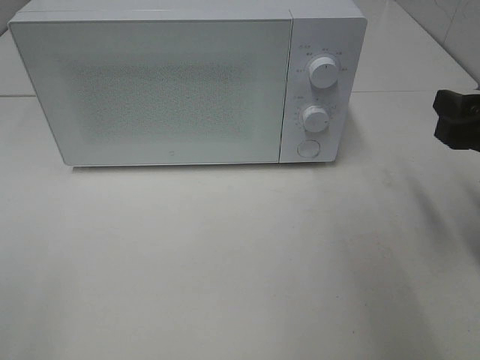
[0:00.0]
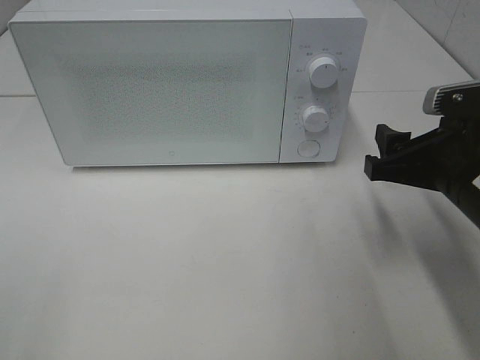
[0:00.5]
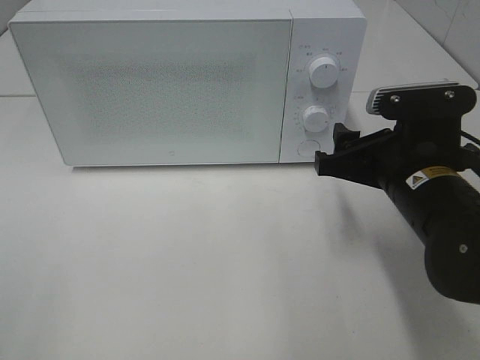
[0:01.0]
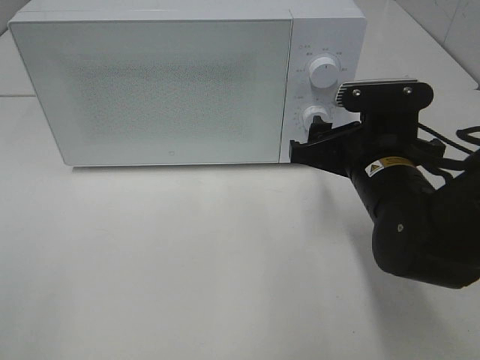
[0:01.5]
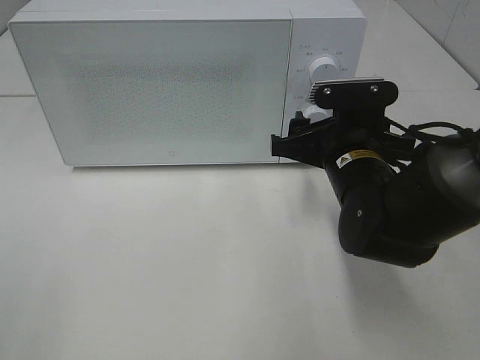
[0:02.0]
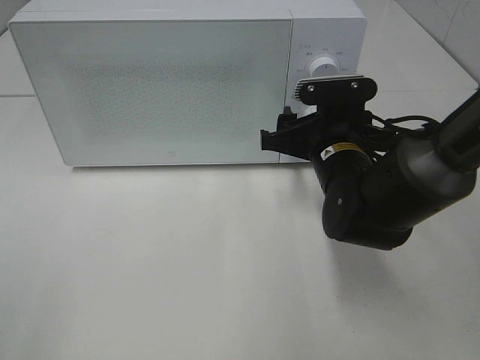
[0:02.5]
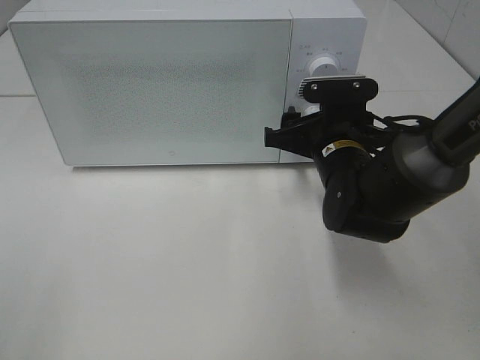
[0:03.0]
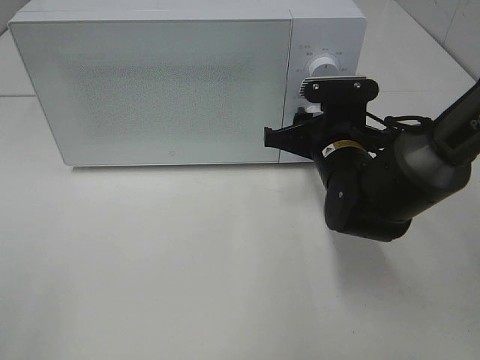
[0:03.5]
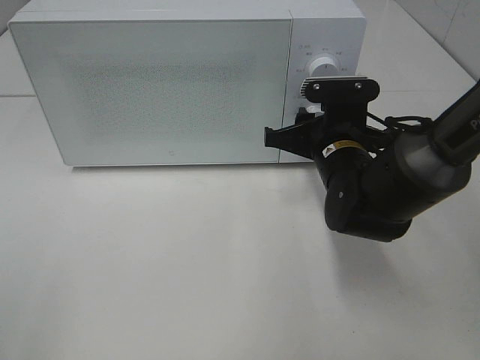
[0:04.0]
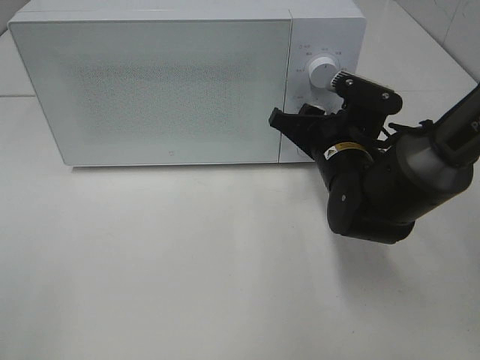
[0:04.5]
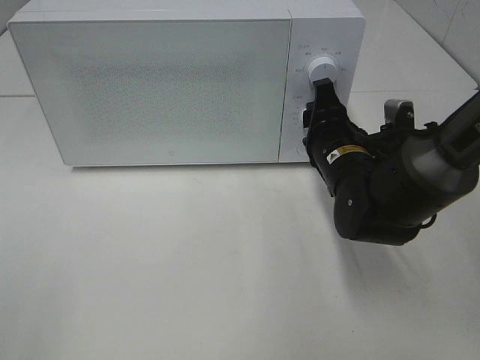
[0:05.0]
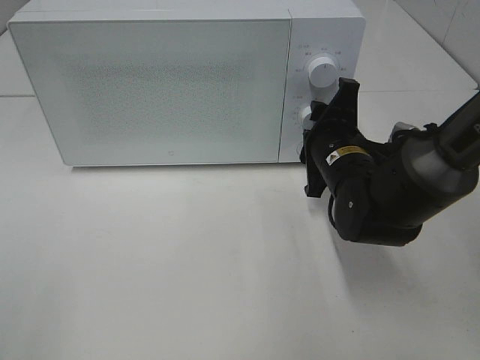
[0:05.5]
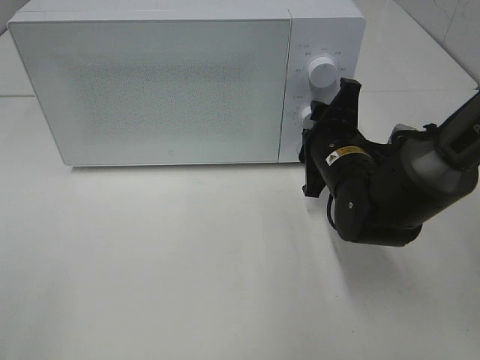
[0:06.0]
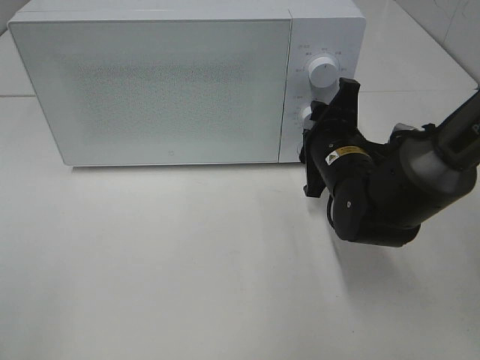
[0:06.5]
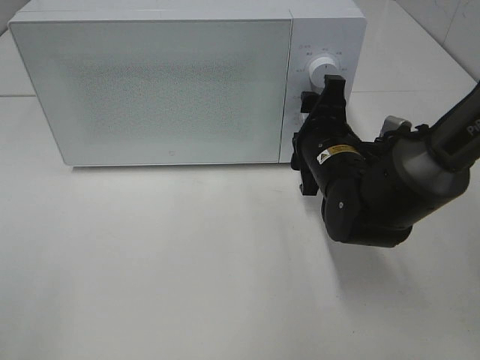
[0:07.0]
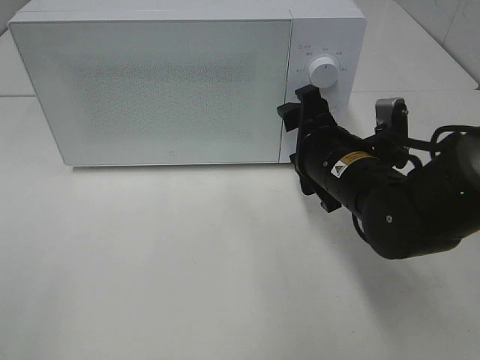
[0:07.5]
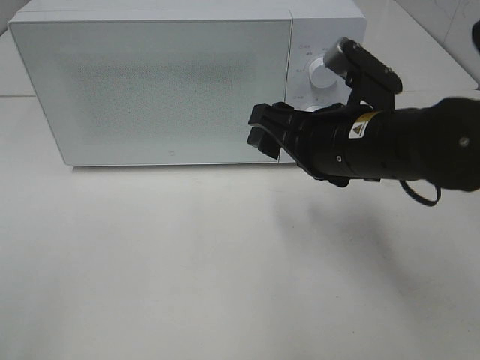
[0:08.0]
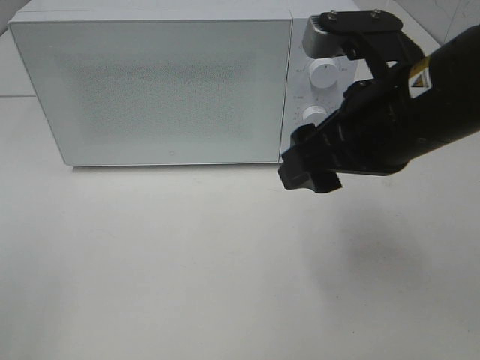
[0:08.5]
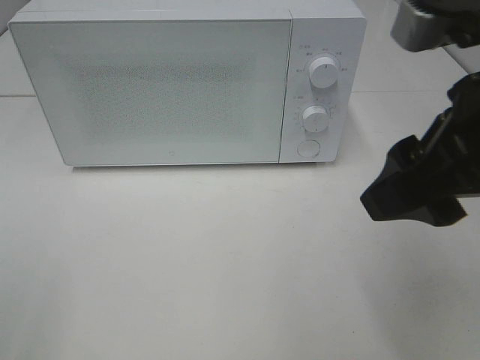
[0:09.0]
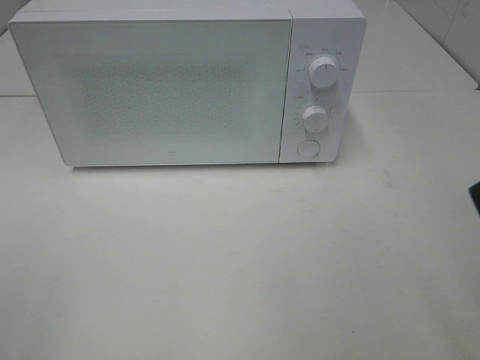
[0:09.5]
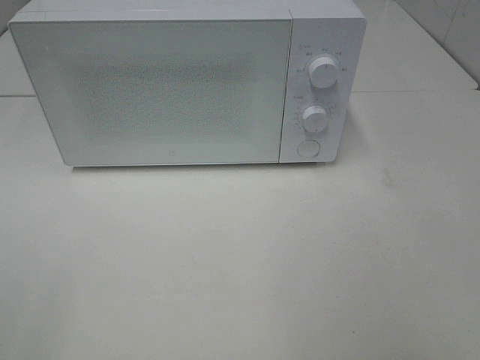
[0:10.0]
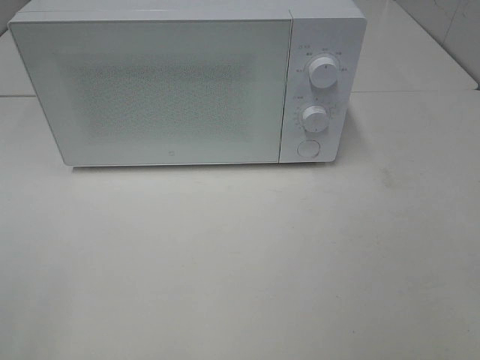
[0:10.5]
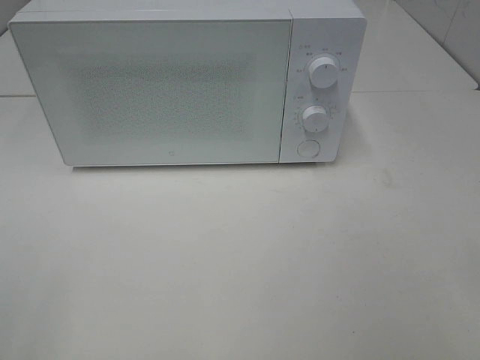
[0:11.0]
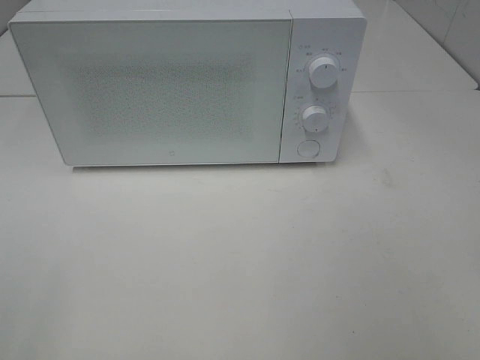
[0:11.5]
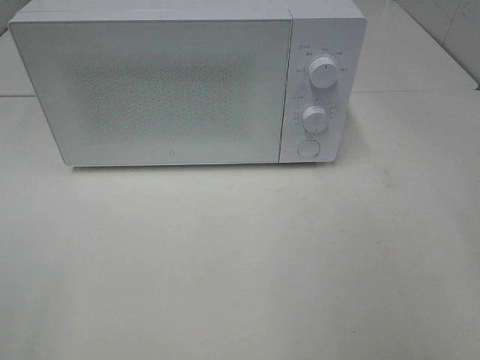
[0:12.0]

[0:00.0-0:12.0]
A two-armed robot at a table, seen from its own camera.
Task of the whole recording: Heat the burger.
Step, 0.0 to 6.5 s: Right hand: twist timer button.
0.0 to 2.0 s: The right gripper shifts about 15 cm to the left, downward and forward.
2.0 to 4.0 s: The right gripper closes up.
6.0 to 8.0 s: The right gripper moves upward and backward, roughly 10 cm.
8.0 to 10.0 s: The right gripper heads backward, to the right and upward, covering about 30 cm.

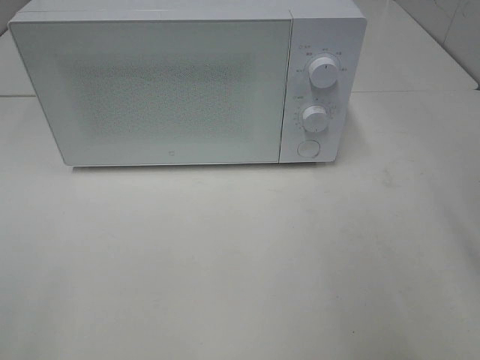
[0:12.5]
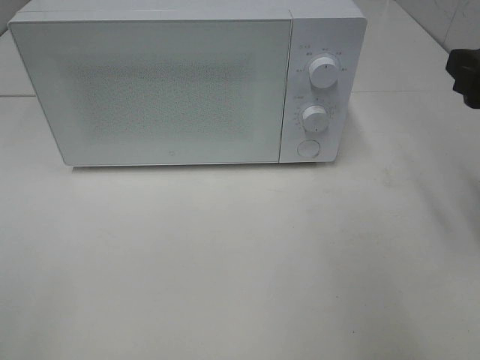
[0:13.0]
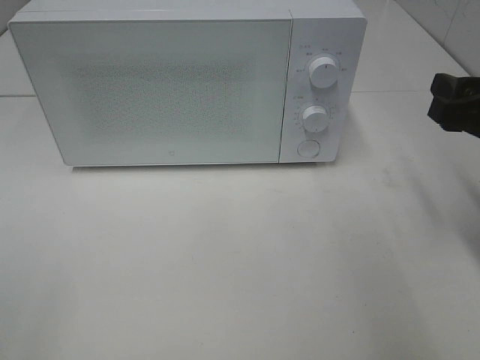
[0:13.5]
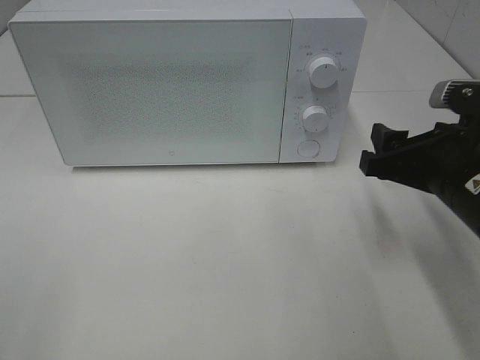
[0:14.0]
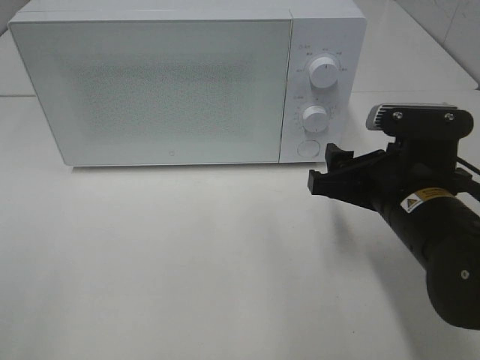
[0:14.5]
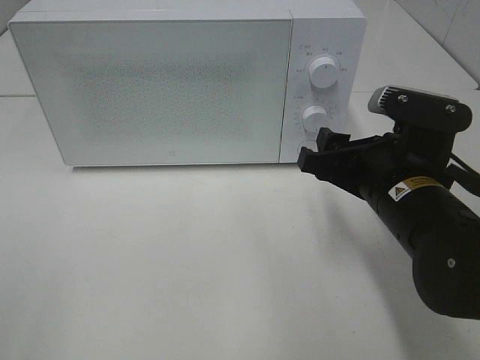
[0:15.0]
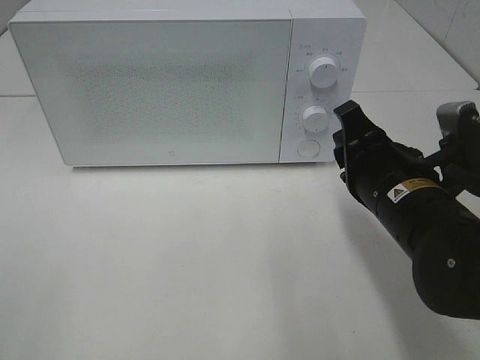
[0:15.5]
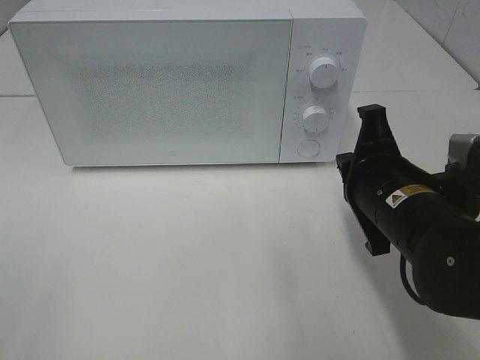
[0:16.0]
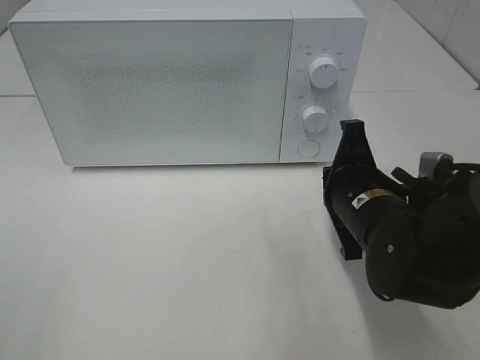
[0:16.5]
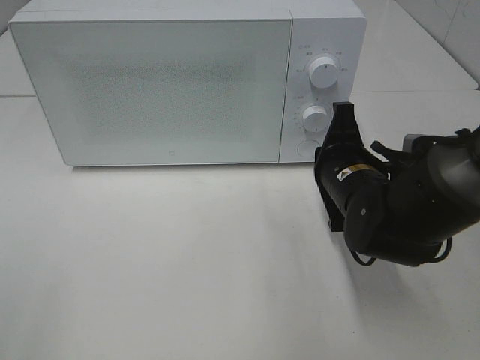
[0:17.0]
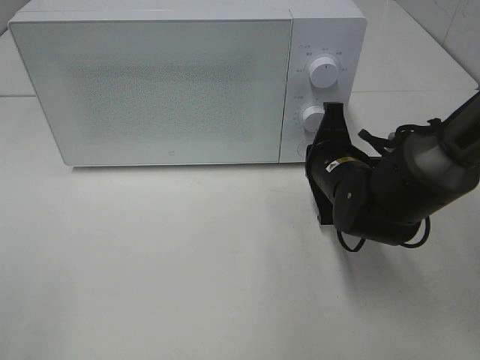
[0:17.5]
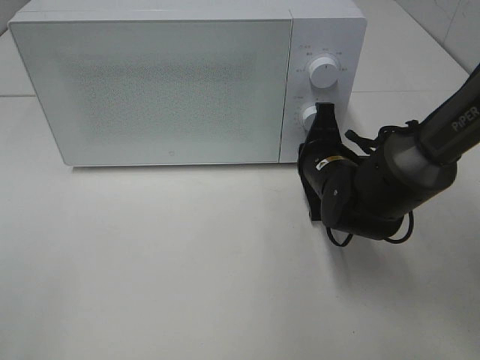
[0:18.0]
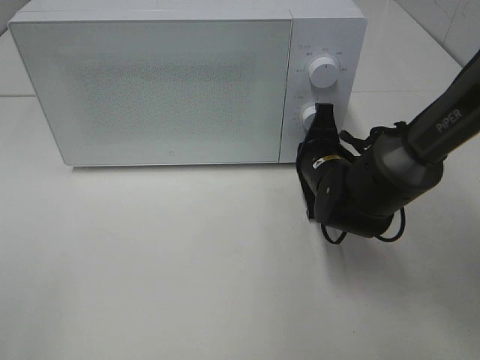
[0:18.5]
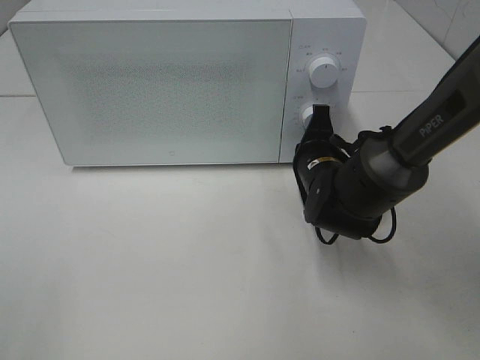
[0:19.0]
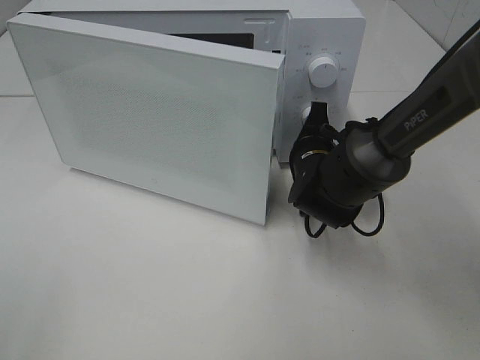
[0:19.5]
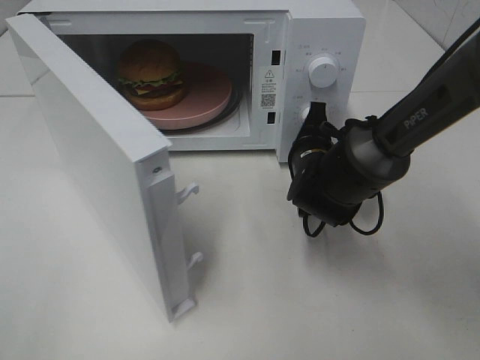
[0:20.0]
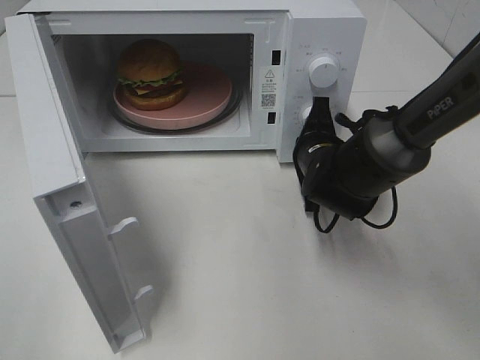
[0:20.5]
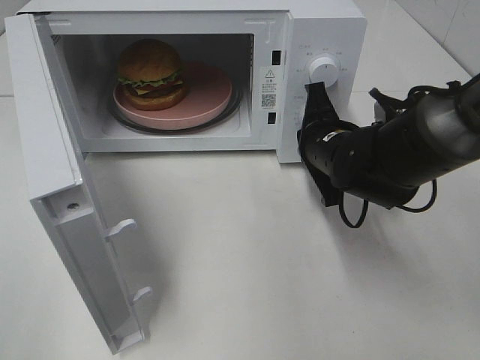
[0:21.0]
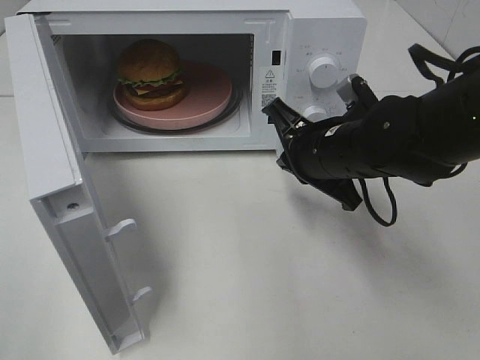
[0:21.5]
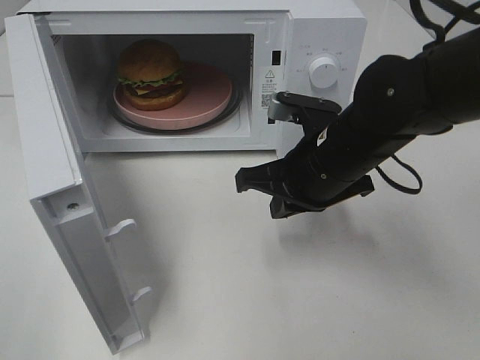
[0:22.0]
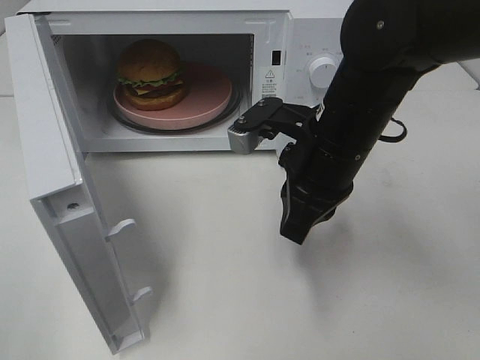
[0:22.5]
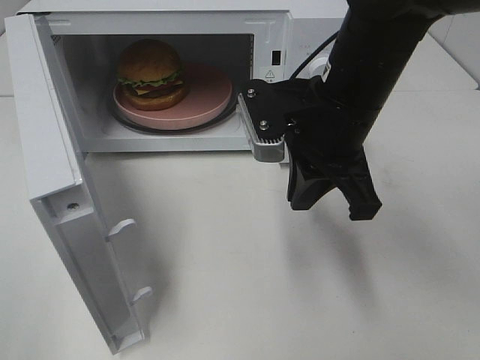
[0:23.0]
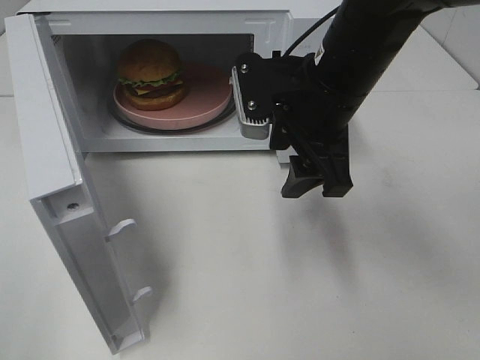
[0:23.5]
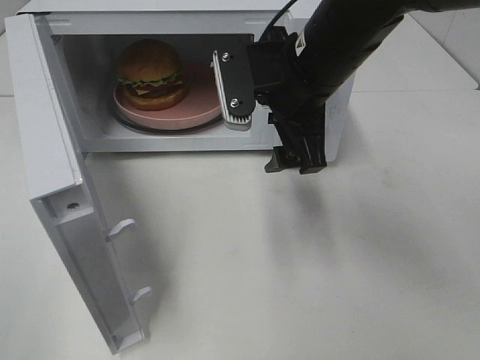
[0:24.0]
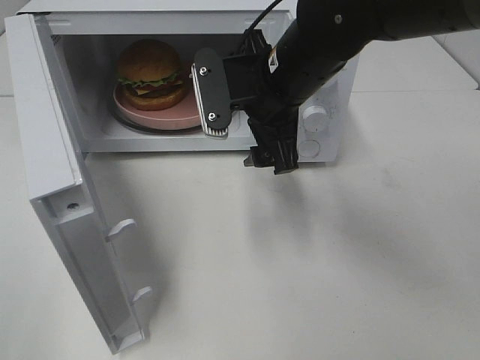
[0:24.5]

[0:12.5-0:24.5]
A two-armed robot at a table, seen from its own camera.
Task of the whole recording: Heat the burger.
Step, 12.5 to 20.5 s: Right hand: press the switch.
12.5 to 14.5 s: The right gripper travels downward, to the left and forward by about 20 cm.
14.5 to 16.5 s: The right gripper changes place by approximately 5 cm, and closes.
16.5 to 18.5 s: The right gripper heads forward, covering roughly 10 cm.
20.5 to 22.5 s: The right gripper is displaced upward and backward by approximately 15 cm.
22.5 to 24.5 s: The right gripper goes about 5 cm forward, and opens up.

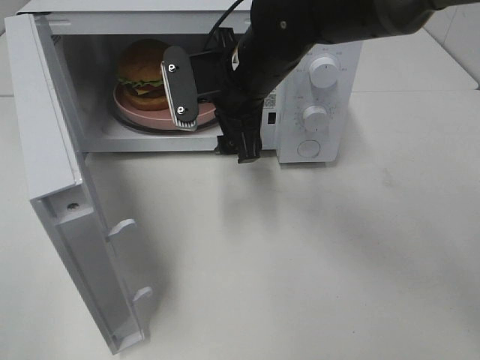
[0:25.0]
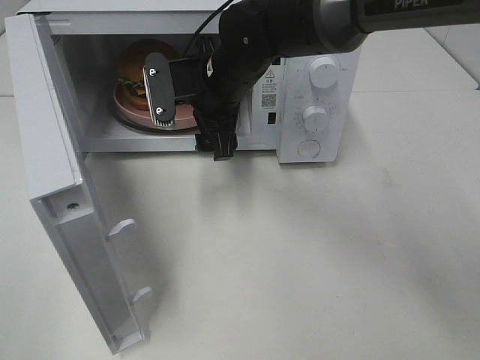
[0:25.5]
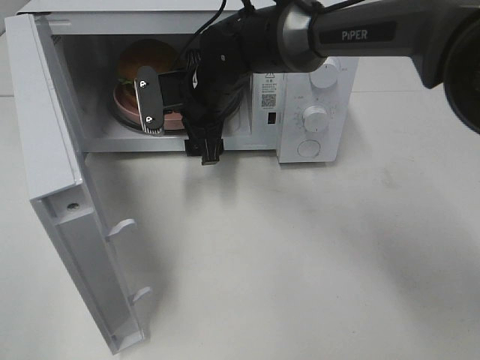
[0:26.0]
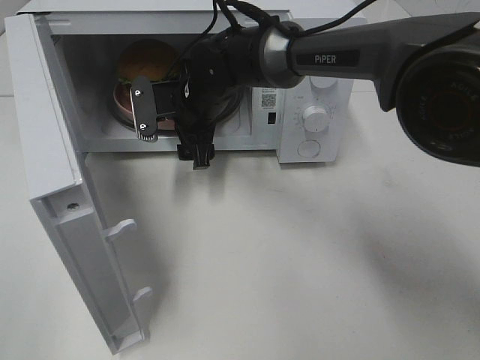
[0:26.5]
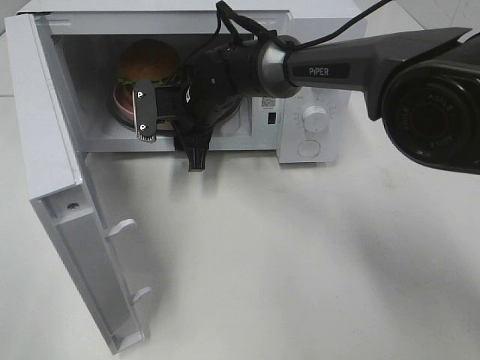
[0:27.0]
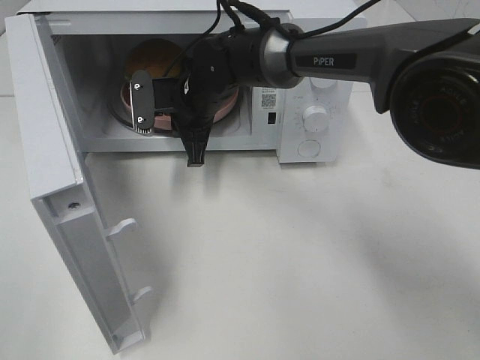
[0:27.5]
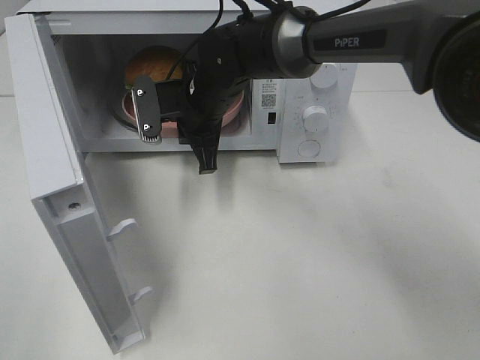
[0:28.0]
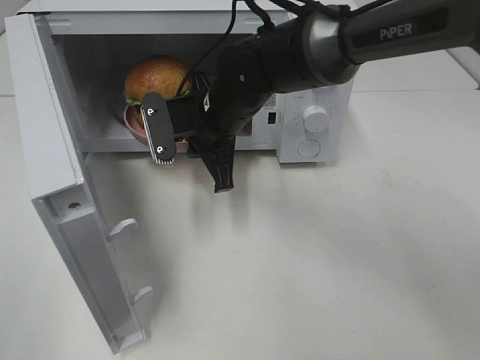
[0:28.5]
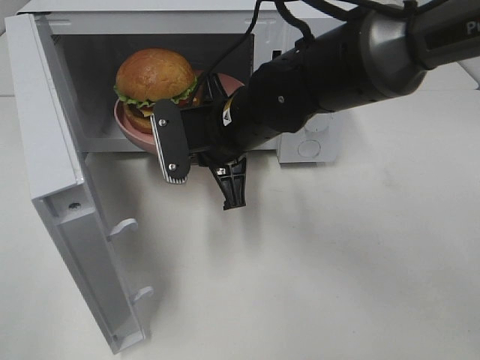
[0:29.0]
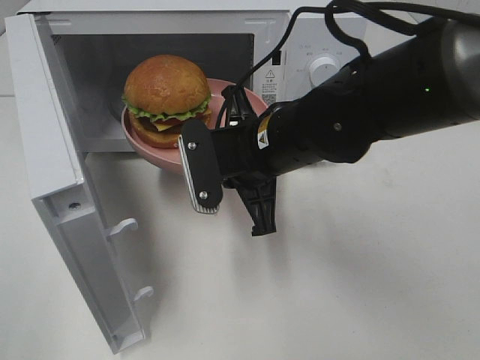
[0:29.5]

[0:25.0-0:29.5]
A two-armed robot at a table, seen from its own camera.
Task of the whole recording: Heat the burger.
Step, 25.0 to 27.0 s: Right hand: grab the plate with the hamburger.
25.0 to 27.0 s: The right gripper is displaced downward, forward and to the left by approximately 15 cm, and closes its fingers.
27.0 to 29.5 s: The right gripper heads backward and to the right, covering some 20 cm, and closes.
